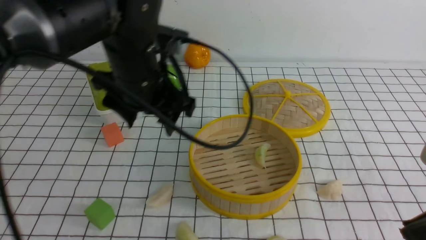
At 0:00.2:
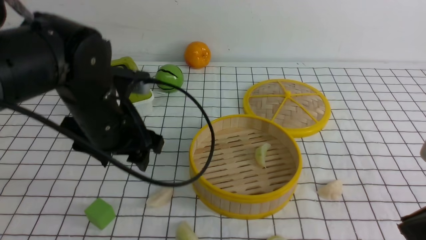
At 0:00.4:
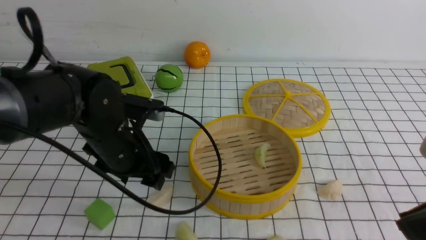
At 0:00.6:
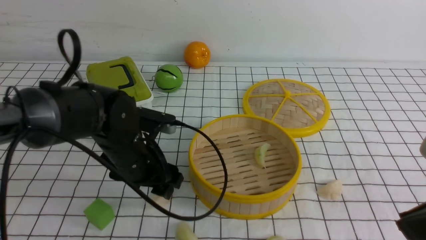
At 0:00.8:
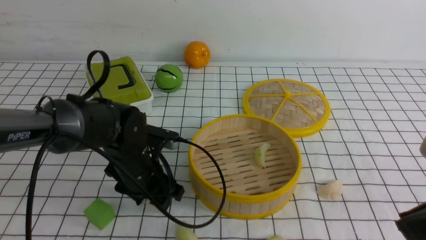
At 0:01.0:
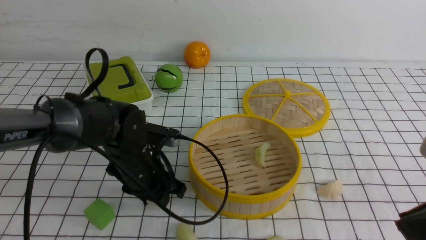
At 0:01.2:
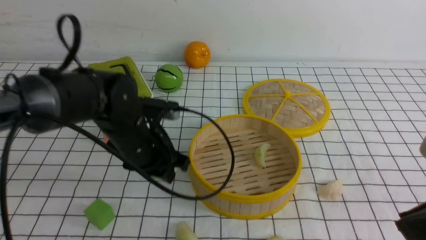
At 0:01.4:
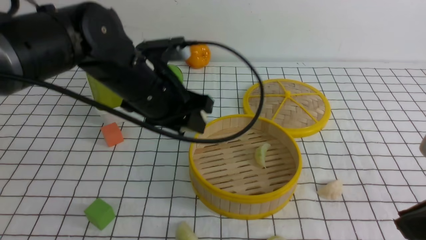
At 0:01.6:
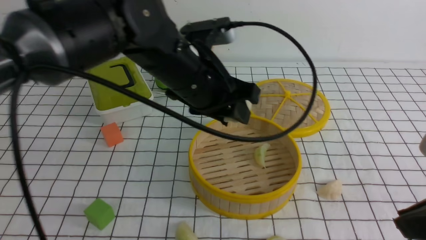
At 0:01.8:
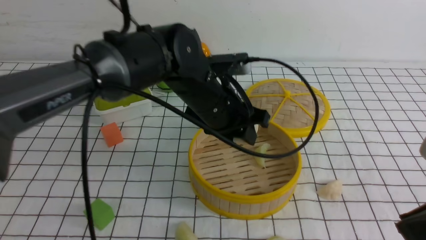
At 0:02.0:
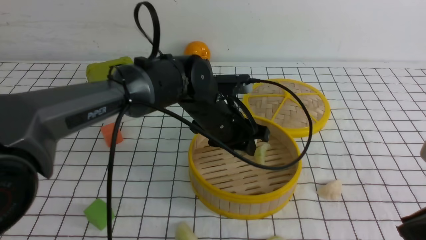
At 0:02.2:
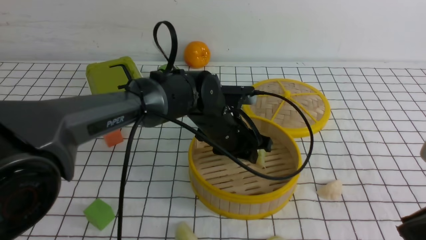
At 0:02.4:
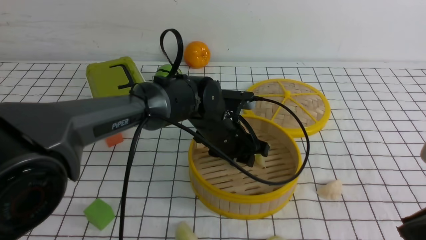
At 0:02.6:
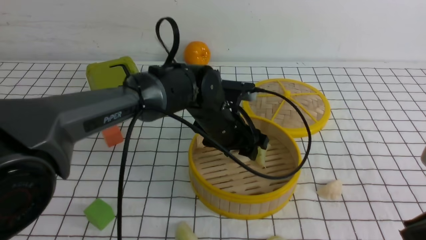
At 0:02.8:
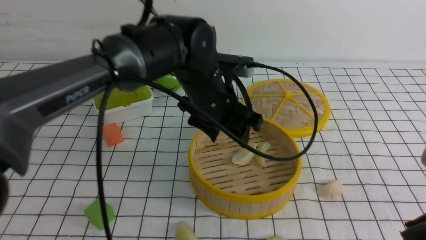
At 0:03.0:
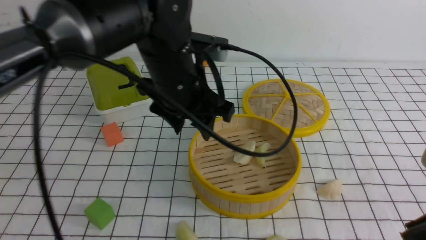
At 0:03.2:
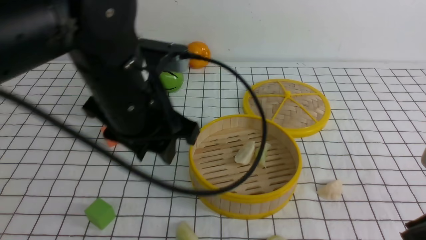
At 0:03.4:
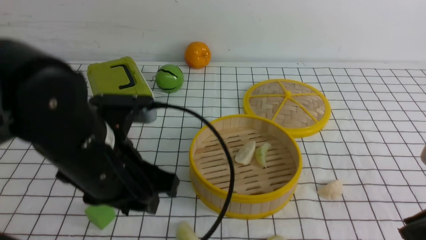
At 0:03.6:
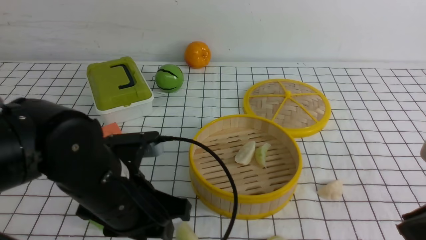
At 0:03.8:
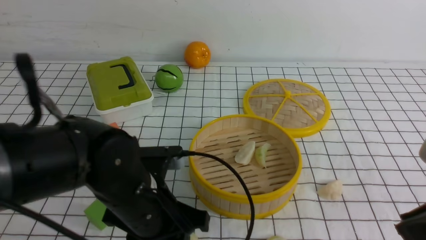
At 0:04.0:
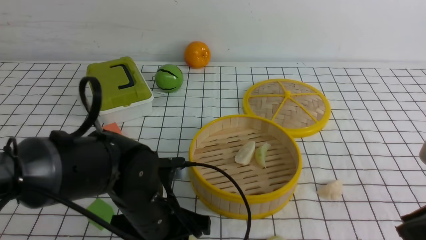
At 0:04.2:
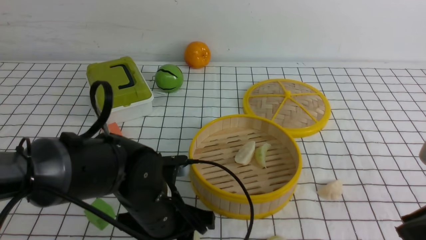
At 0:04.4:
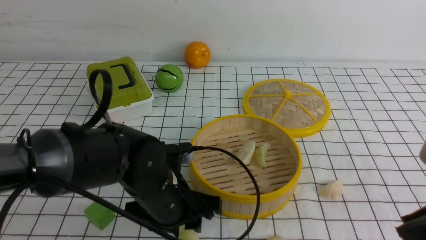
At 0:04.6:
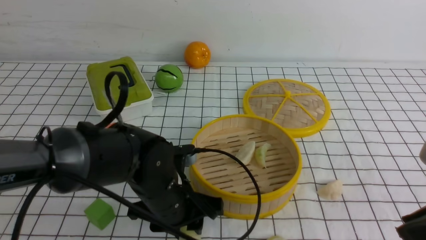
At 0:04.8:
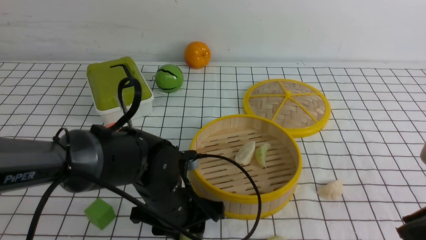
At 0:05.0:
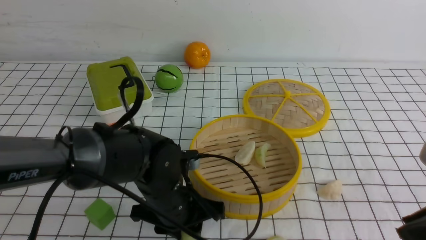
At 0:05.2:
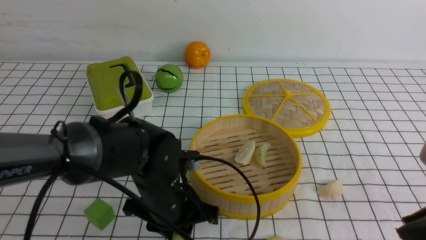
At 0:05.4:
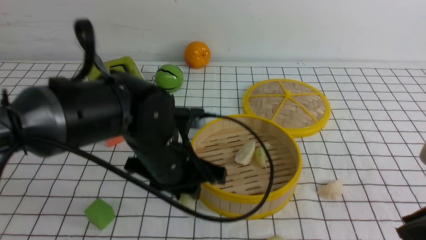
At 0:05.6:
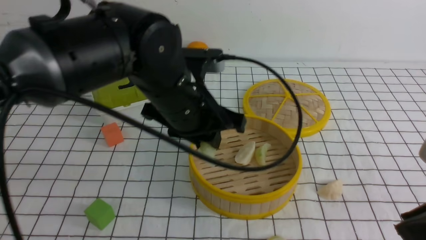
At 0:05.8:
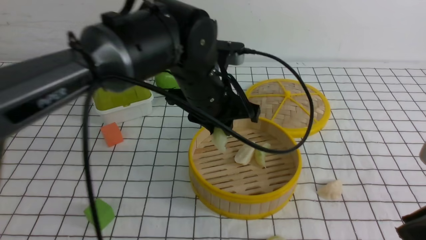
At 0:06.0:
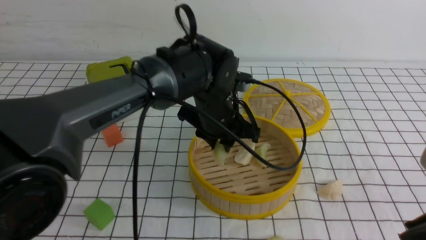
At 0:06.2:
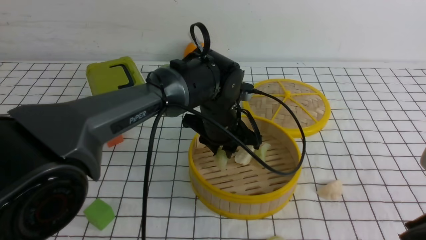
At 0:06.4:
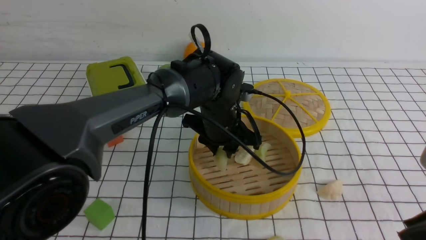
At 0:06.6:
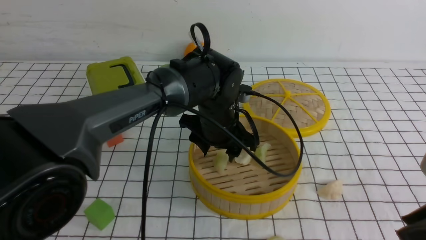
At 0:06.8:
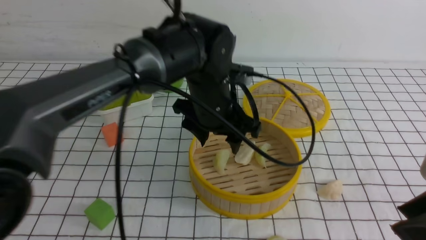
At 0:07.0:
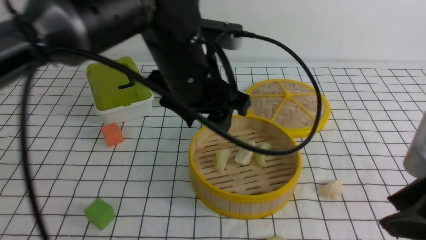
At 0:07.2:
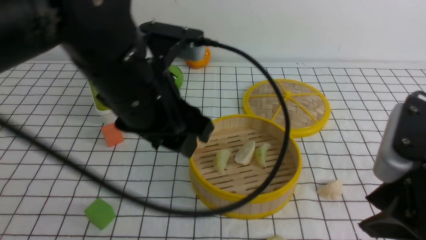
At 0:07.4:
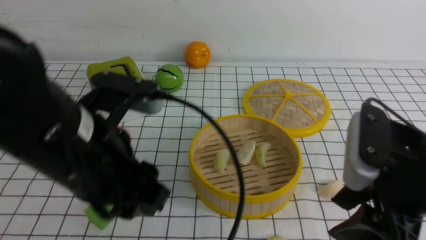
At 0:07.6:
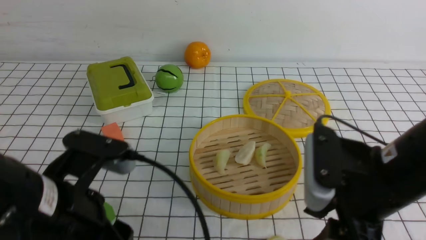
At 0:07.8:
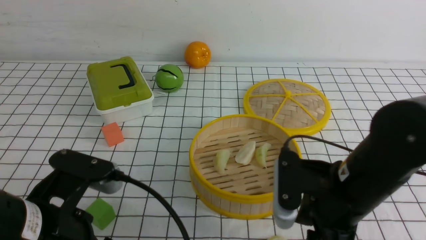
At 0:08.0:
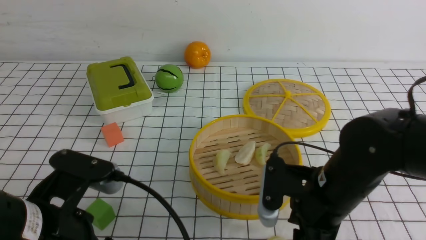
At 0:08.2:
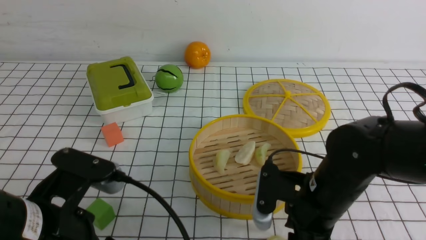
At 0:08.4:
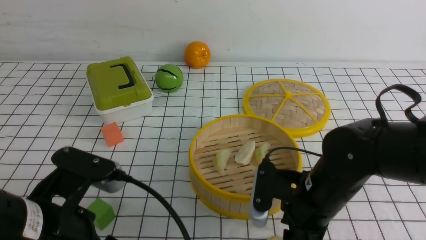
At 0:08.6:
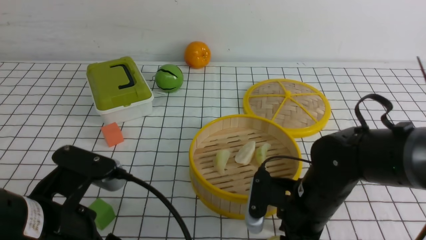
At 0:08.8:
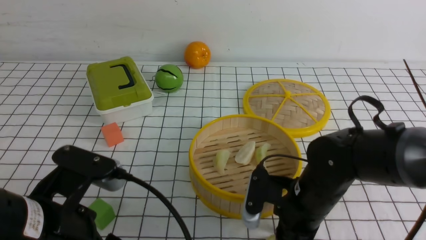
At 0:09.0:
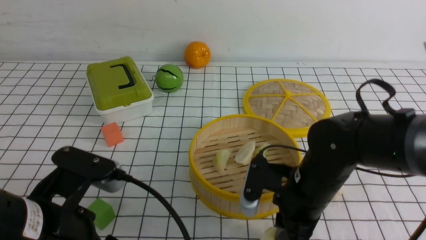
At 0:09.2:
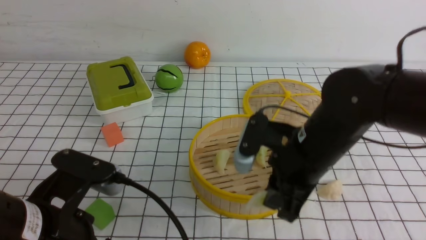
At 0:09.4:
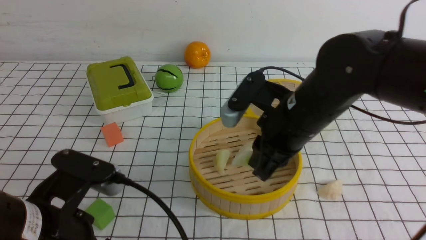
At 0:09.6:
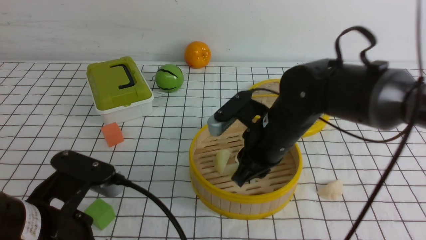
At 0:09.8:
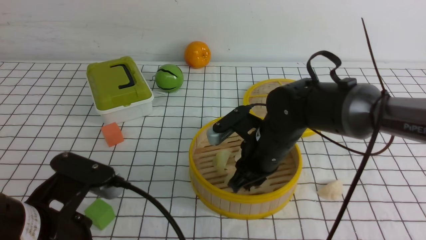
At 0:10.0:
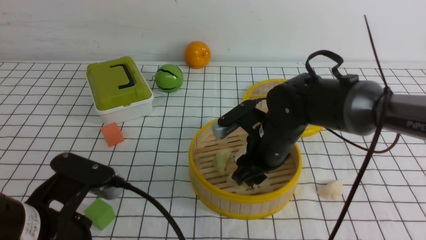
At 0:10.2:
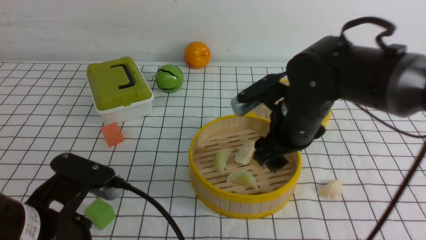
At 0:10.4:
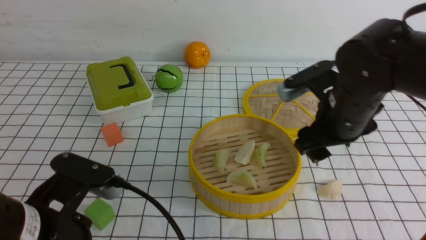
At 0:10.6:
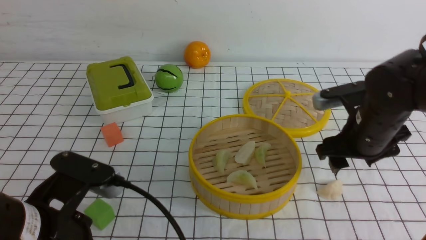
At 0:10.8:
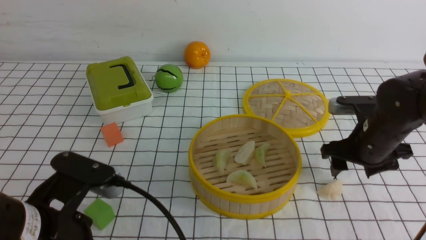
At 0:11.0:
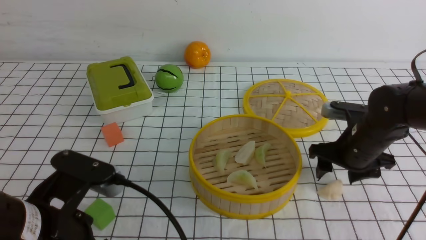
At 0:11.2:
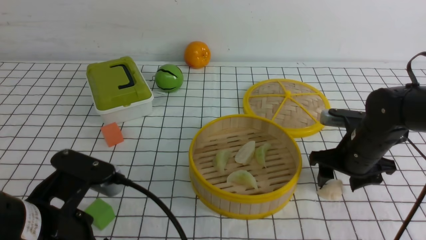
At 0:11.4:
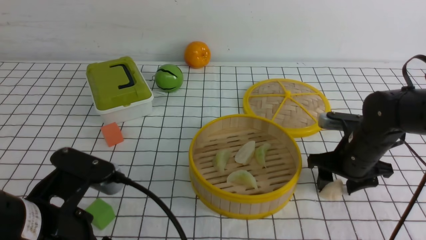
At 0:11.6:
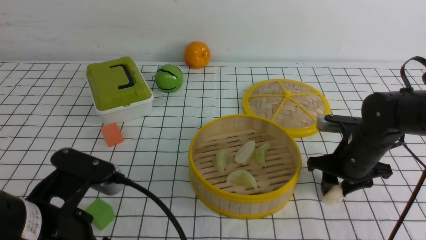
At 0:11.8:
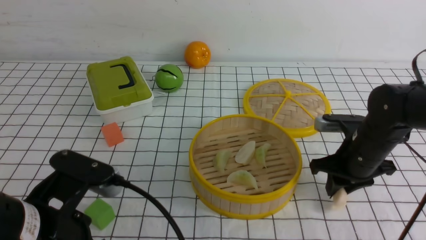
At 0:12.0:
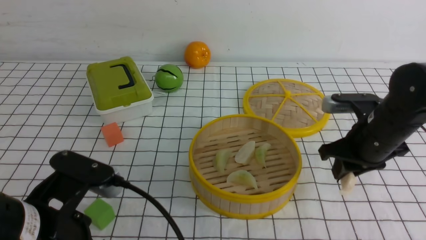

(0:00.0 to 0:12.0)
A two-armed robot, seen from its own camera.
Task of the whole recording: put the dumplings into the steamer on the table with the white tablecloth.
Step, 0:00.0 - 0:00.8: use the left arm to grab a dumpling.
Step, 0:01.0 - 0:02.8: use the left arm to put the dumpling into the steamer.
Step, 0:03.0 - 0:05.0: use the left arm to grab a dumpling.
Step, 0:05.4 - 0:06.6: use the left arm to put the dumpling into the steamer.
Step, 0:06.8 - 0:08.8: use the right arm to grab a dumpling.
Step, 0:09.0 - 0:10.2: use the right arm to put the dumpling into the steamer.
Step, 0:10.4 - 0:11.4: use the right arm to grab a dumpling.
0:00.0 - 0:01.6: The left gripper goes downward and returns, roughly 15 cm each way, and closes its fingers.
0:01.6 - 0:03.0: The left gripper moves about 10 cm downward and comes back.
0:03.0 - 0:04.4: The left gripper goes approximately 15 cm downward and backward.
0:04.4 - 0:06.0: The left gripper goes some 15 cm forward, upward and to the right.
0:06.0 - 0:07.6: The right gripper shifts roughly 10 cm forward, downward and to the left, and opens its fingers. The left gripper is displaced backward and to the left by about 25 cm.
0:07.6 - 0:09.0: The left gripper shifts by about 5 cm, while the right gripper moves downward, forward and to the left, about 15 cm.
0:09.0 - 0:10.4: The right gripper moves up and down over roughly 10 cm, changing direction 2 times, and opens up.
0:10.4 - 0:12.0: The right gripper travels to the right by approximately 10 cm, and closes.

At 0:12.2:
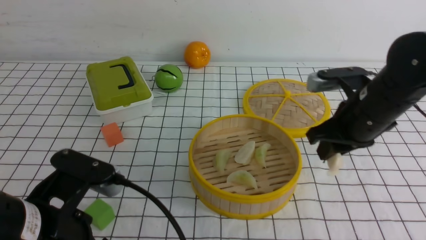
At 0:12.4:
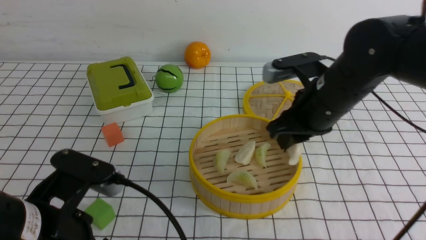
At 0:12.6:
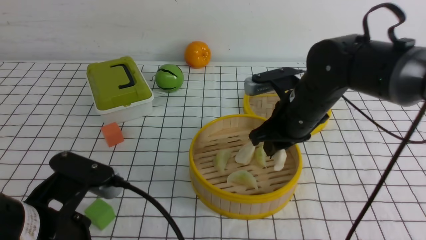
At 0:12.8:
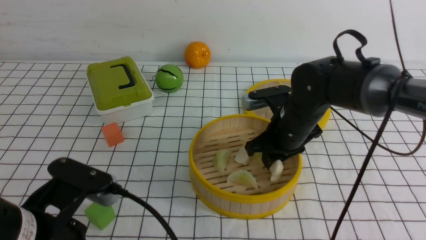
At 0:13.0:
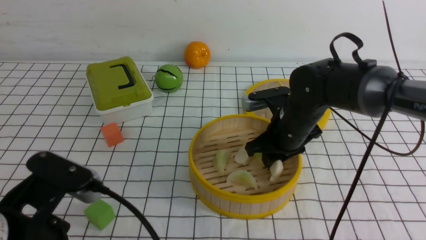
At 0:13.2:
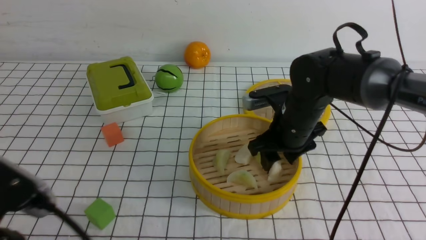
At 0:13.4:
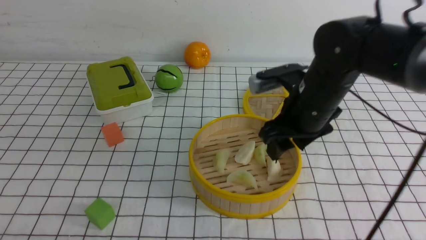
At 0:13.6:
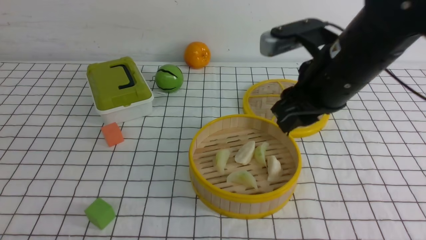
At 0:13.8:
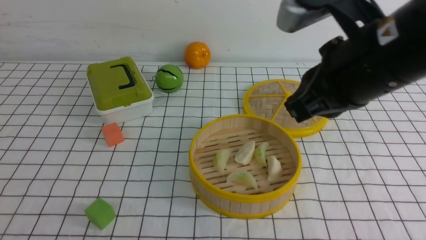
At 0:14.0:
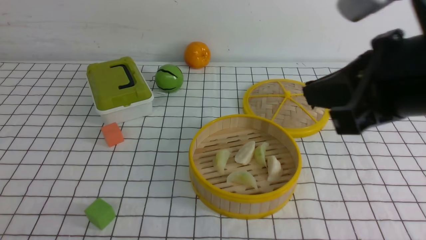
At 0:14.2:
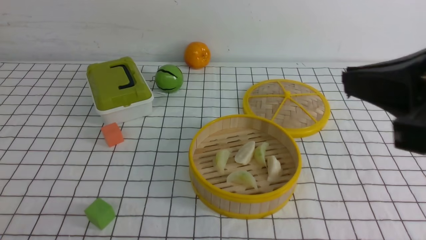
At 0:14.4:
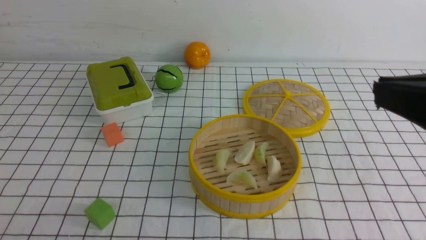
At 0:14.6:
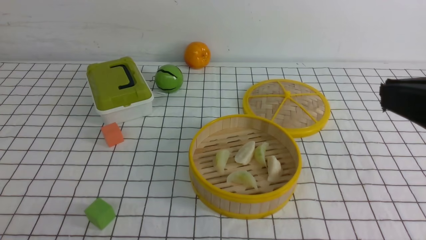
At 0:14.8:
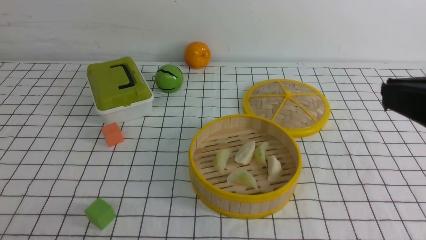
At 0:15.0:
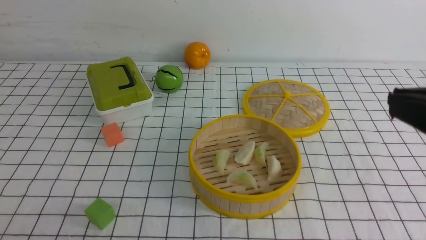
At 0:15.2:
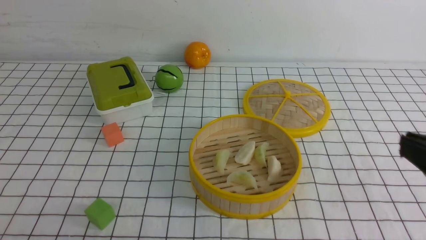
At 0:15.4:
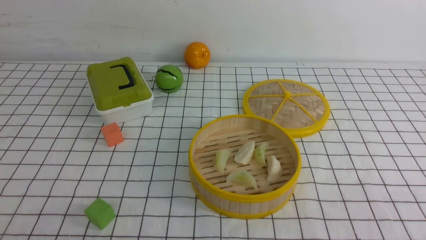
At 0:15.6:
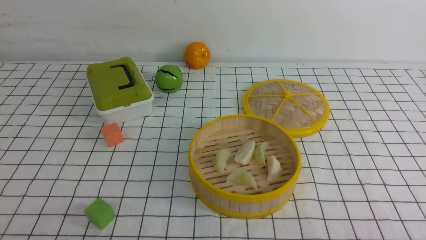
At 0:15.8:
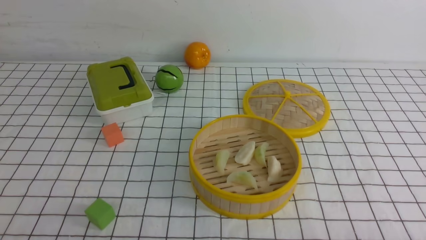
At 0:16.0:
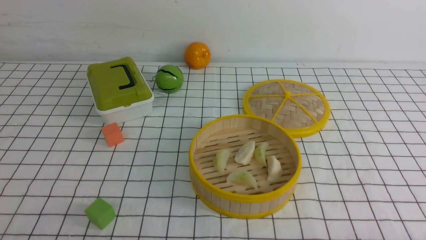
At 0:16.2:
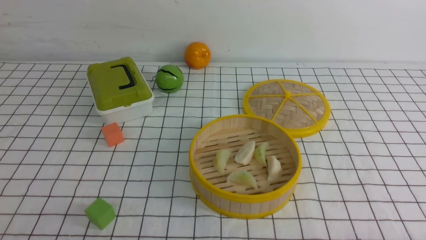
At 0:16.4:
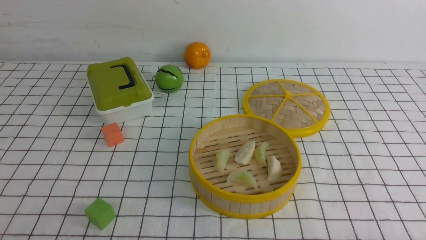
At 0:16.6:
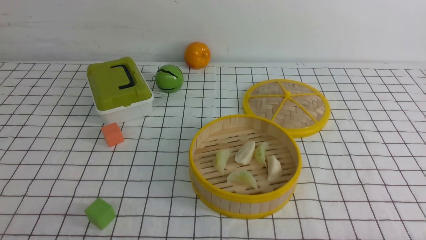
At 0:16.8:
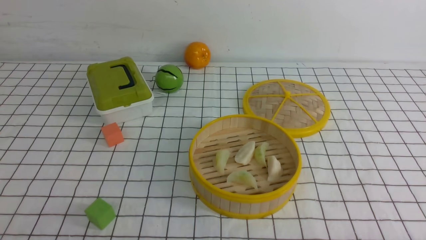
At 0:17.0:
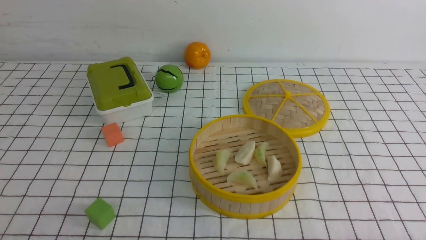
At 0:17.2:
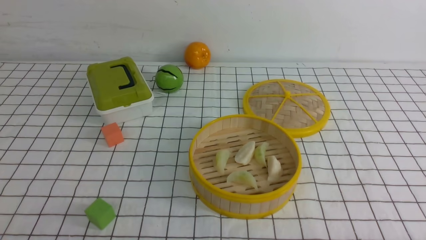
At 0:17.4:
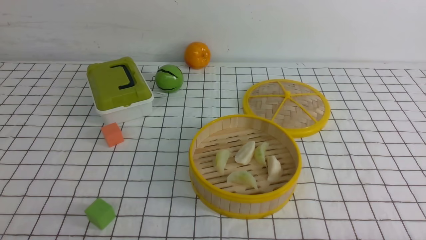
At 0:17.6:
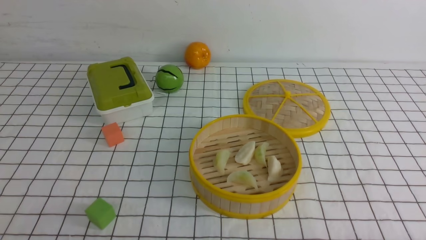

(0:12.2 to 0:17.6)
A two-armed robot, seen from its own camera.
Task of the whole recording: put the dumplings into the steamer on the table with the white tablecloth.
Step, 0:12.2 - 0:13.2: use the right arm to put the dumpling into the steamer.
0:12.2 - 0:13.6: The left gripper is displaced backward and to the left by roughly 10 cm, and closes. The right gripper travels upward and to the left by approximately 10 cm.
0:13.6 - 0:15.0: The right gripper travels backward and to the right by about 20 cm, and closes up.
0:15.0 - 0:16.2: The right gripper travels downward by approximately 20 cm.
0:16.2 - 0:17.6: The two grippers keep their place.
